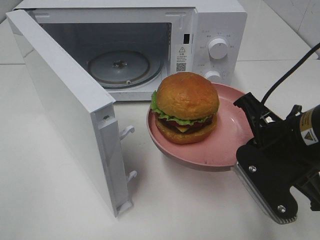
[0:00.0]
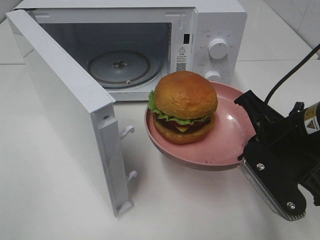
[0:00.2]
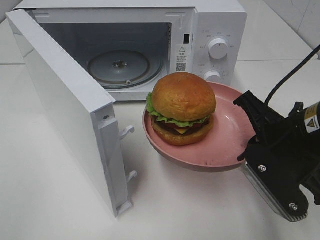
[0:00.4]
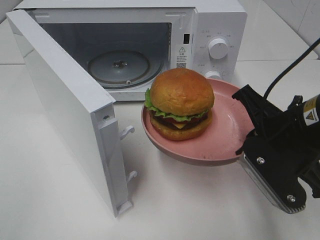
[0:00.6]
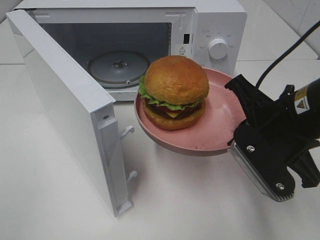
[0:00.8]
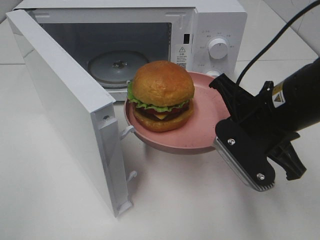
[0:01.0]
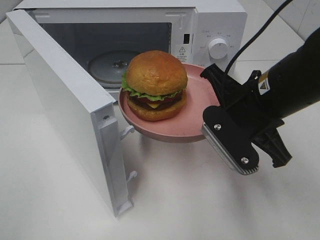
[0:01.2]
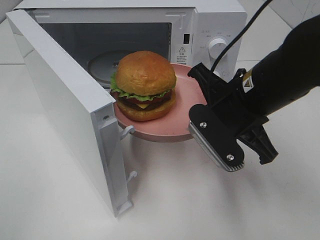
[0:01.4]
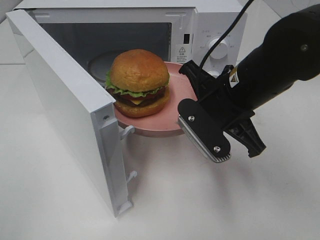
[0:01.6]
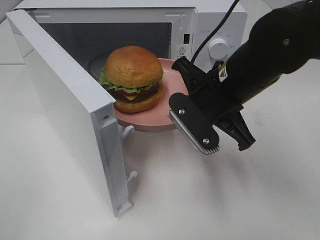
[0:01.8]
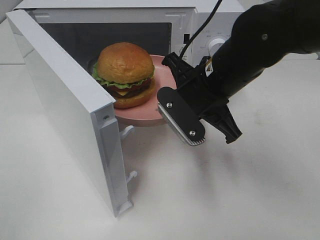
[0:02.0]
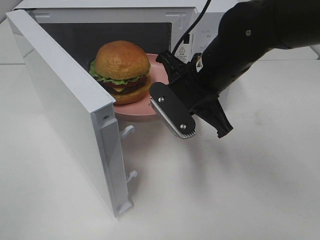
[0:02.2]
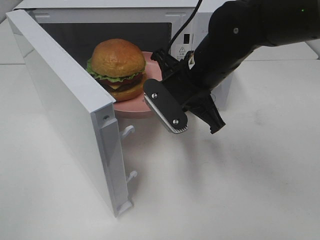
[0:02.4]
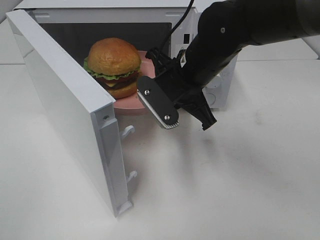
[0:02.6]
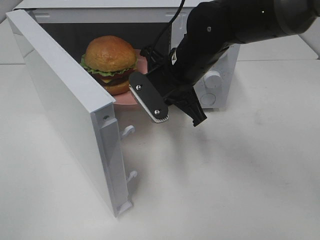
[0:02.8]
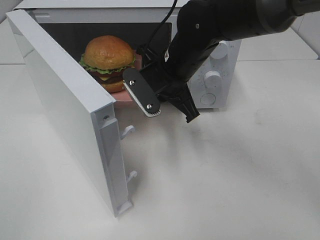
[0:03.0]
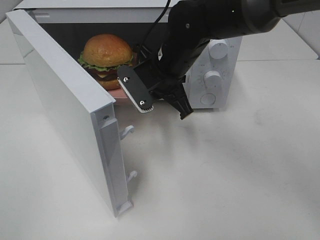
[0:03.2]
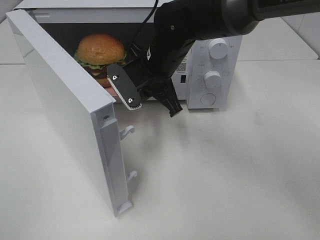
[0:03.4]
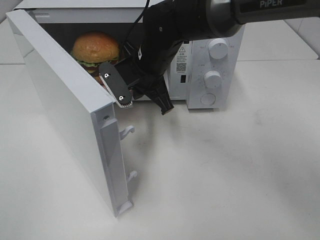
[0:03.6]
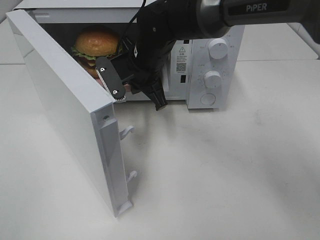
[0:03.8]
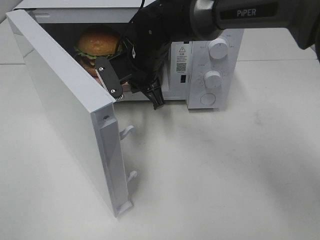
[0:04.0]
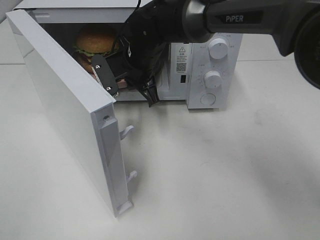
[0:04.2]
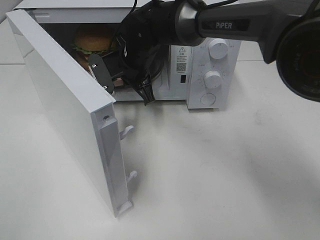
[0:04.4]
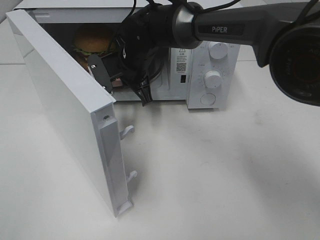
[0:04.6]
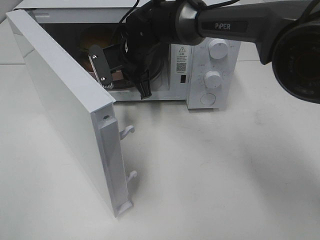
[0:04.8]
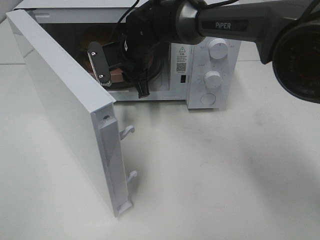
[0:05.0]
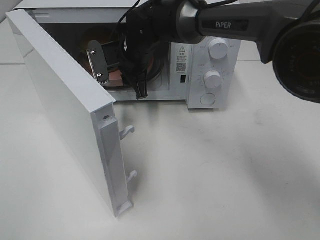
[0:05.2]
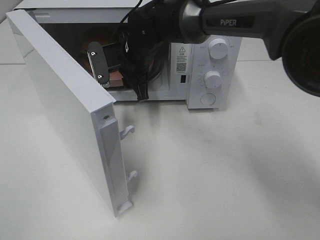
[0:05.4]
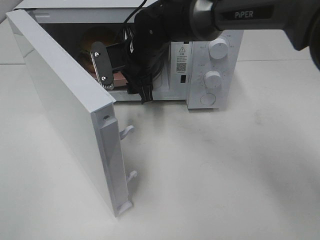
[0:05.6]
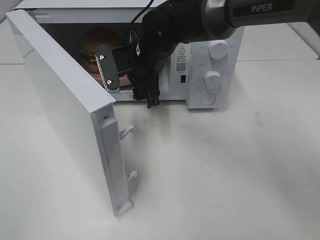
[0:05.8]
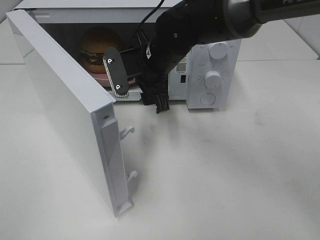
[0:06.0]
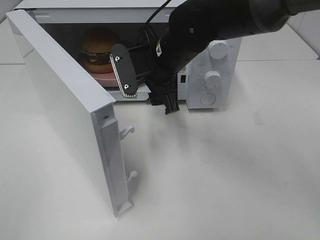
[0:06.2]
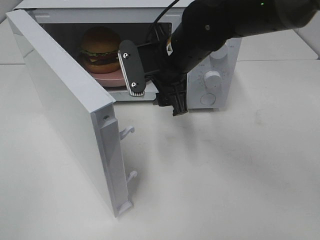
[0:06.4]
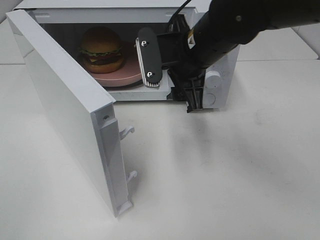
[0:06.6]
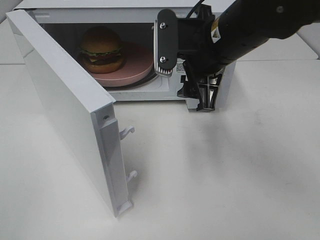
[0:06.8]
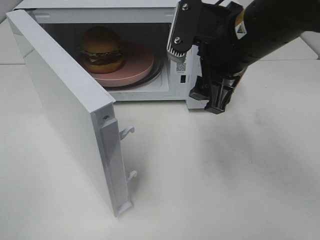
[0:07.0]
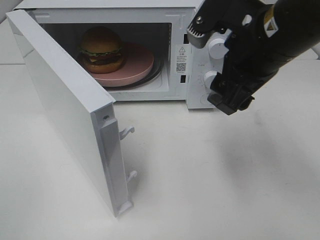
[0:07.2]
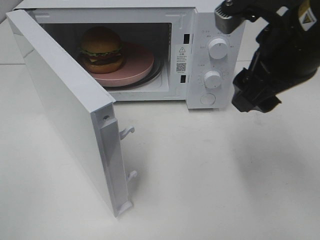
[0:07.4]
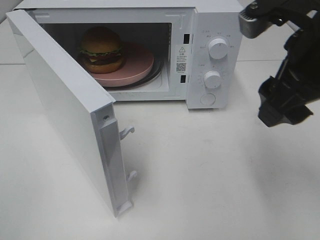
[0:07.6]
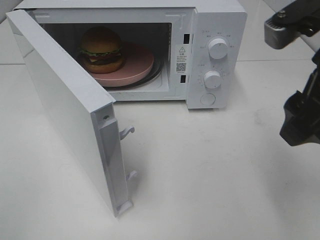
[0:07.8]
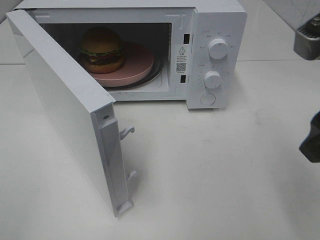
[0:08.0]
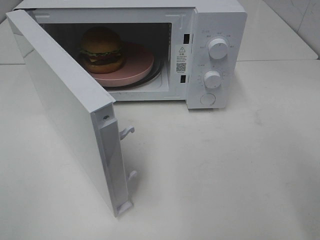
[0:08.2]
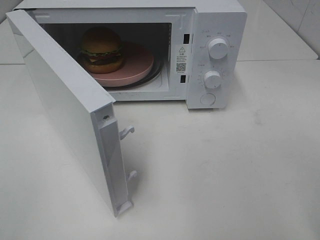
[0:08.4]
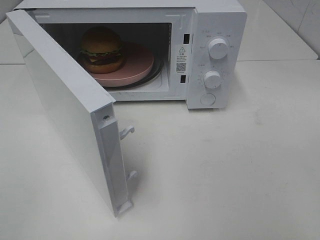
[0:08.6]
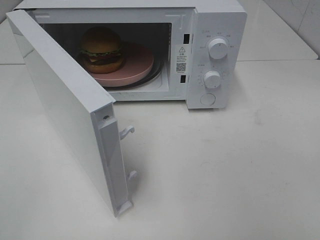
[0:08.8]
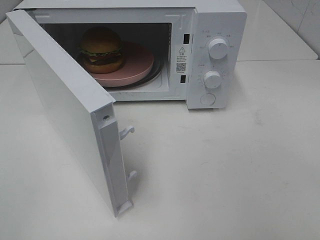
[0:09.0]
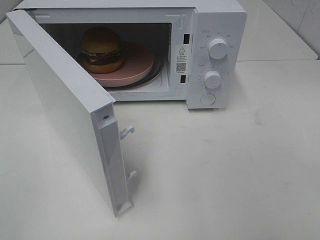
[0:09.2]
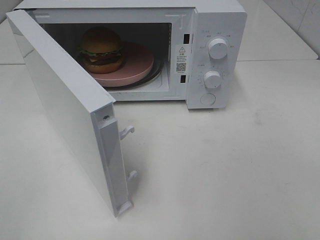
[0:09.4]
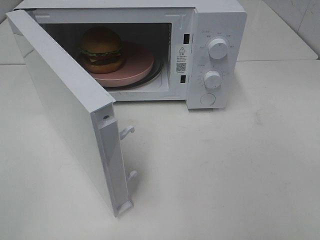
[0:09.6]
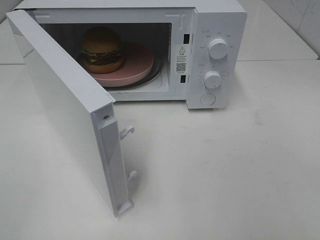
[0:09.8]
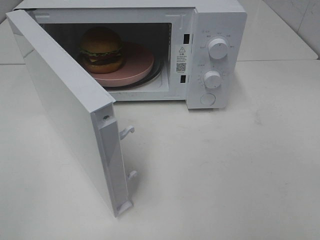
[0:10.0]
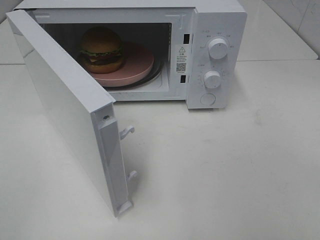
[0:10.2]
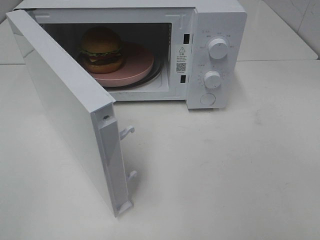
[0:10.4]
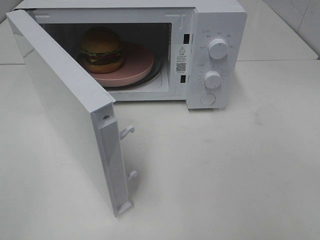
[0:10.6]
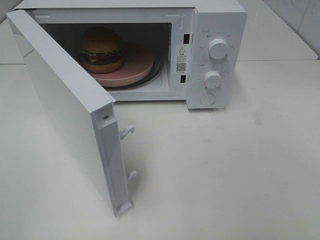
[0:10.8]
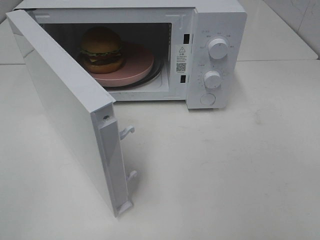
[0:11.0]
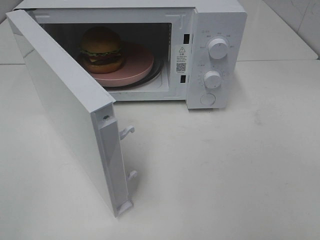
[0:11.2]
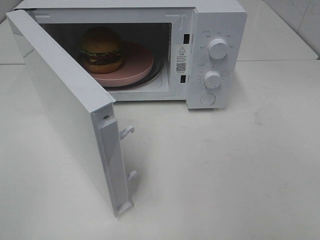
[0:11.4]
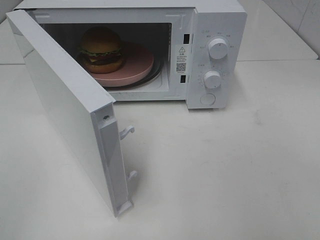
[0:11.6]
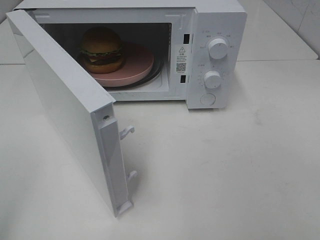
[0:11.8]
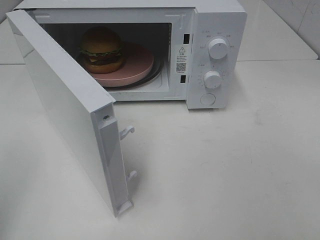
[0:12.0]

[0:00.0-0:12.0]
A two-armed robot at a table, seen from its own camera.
Task of the whole recording: Heat the burger.
Step, 0:00.0 to 0:06.2: Right hand: place the plate in the microwave.
0:00.0 to 0:01.6: The right gripper is displaced forward and to the left by roughly 10 cm.
0:01.6 to 0:03.0: The right gripper goes about 10 cm forward and to the left.
0:03.0 to 0:04.4: The right gripper shifts about 10 cm forward and to the left.
0:04.4 to 0:06.0: The right gripper is displaced backward by some 5 cm, and opens.
0:06.0 to 0:07.6: The right gripper is displaced backward, to the right and upward by about 25 cm.
0:07.6 to 0:09.0: The right gripper travels backward and to the right by some 20 cm.

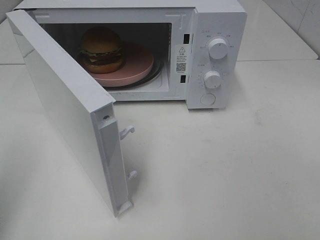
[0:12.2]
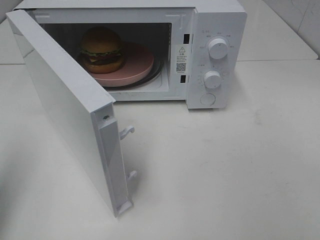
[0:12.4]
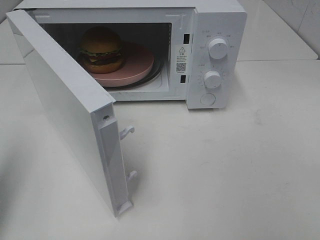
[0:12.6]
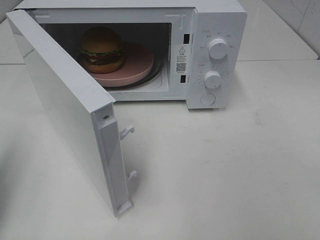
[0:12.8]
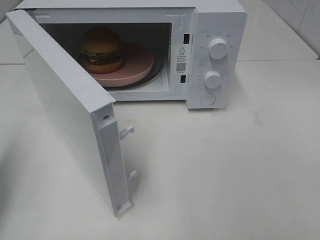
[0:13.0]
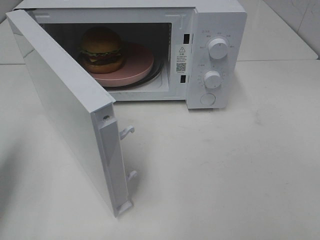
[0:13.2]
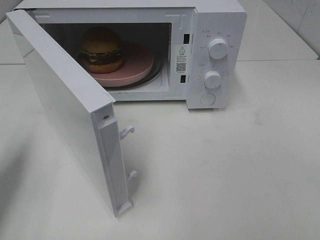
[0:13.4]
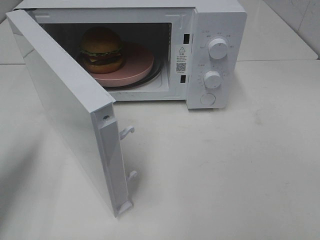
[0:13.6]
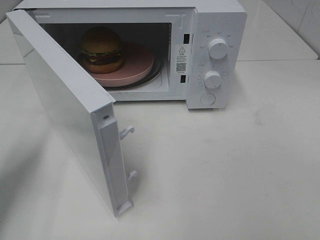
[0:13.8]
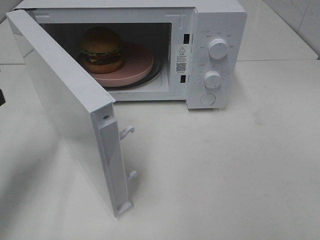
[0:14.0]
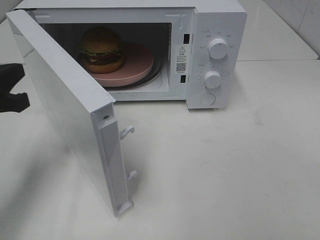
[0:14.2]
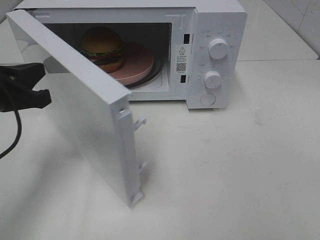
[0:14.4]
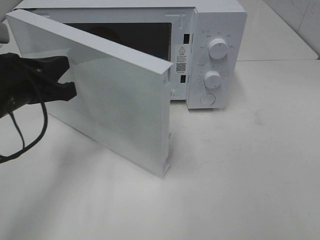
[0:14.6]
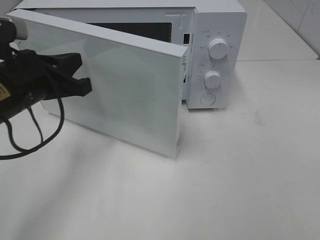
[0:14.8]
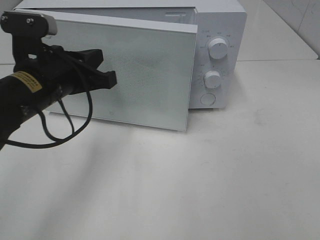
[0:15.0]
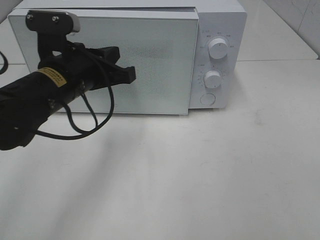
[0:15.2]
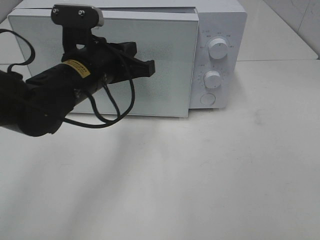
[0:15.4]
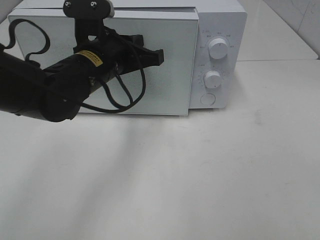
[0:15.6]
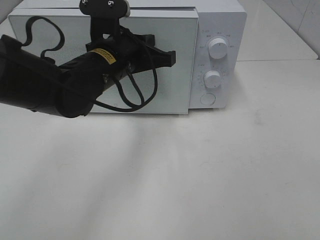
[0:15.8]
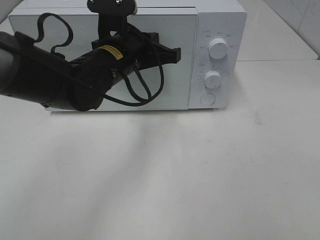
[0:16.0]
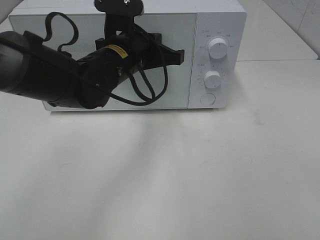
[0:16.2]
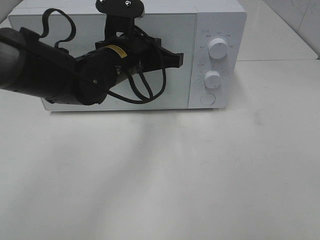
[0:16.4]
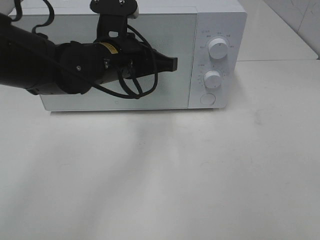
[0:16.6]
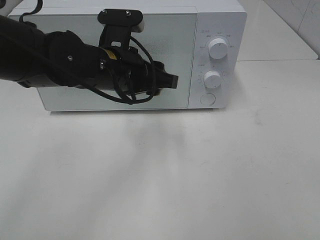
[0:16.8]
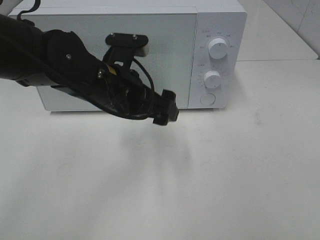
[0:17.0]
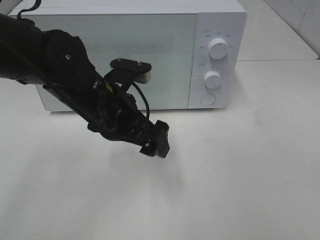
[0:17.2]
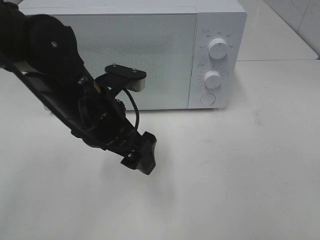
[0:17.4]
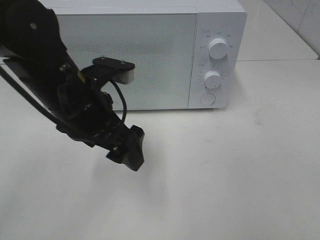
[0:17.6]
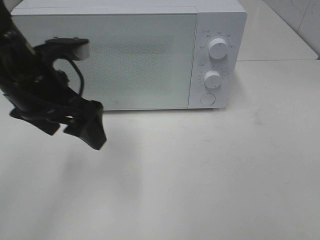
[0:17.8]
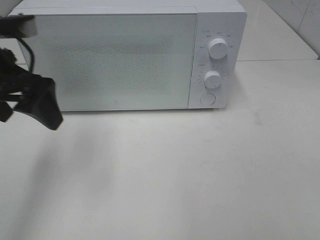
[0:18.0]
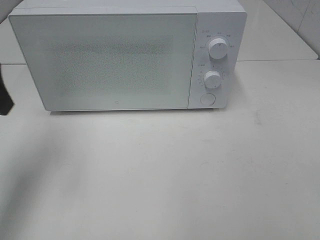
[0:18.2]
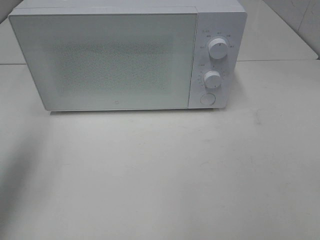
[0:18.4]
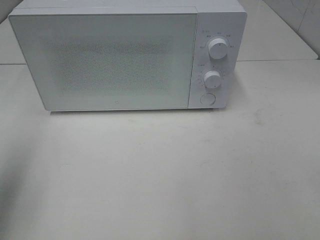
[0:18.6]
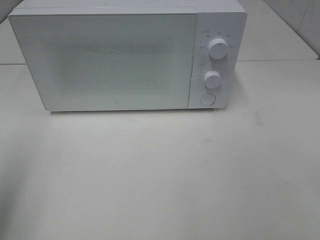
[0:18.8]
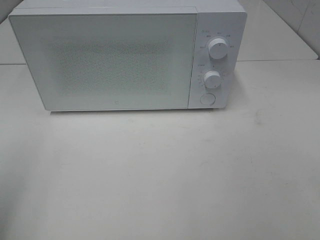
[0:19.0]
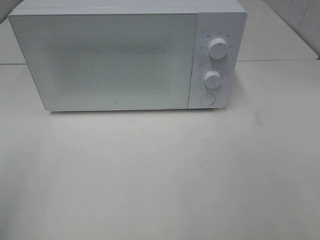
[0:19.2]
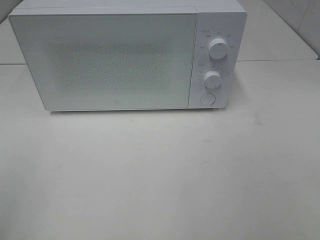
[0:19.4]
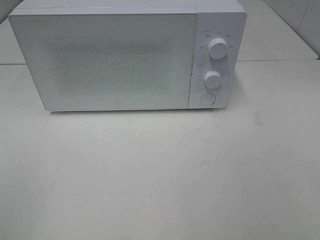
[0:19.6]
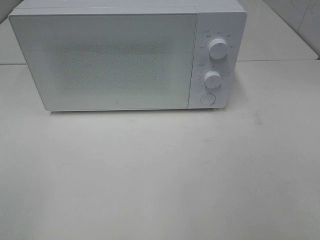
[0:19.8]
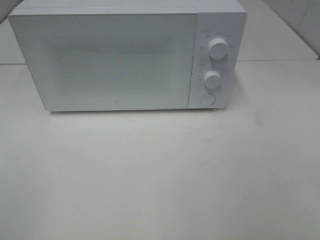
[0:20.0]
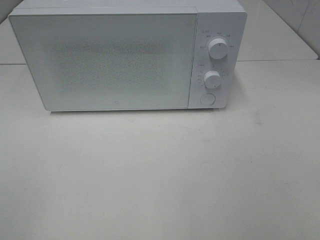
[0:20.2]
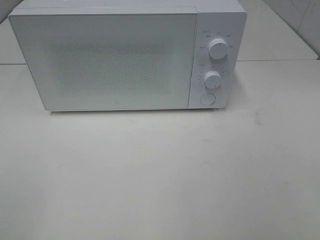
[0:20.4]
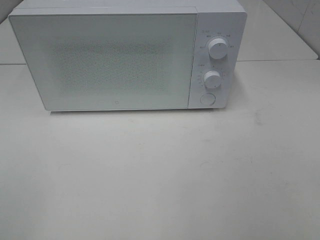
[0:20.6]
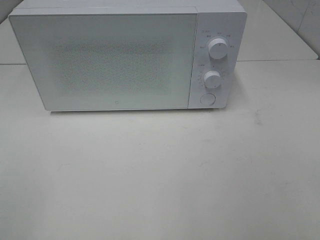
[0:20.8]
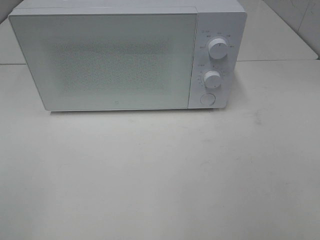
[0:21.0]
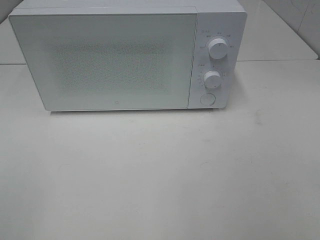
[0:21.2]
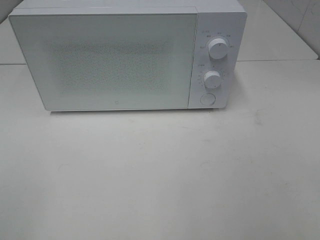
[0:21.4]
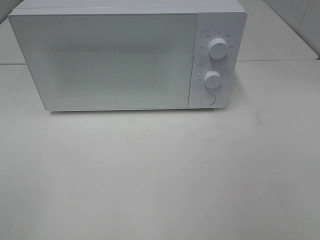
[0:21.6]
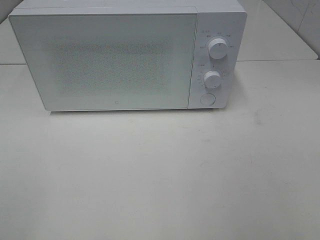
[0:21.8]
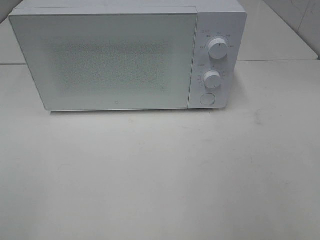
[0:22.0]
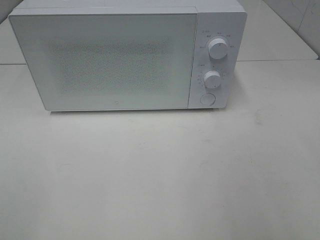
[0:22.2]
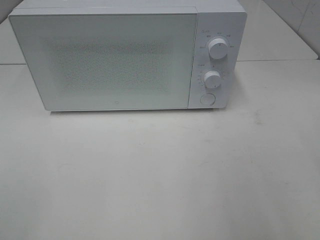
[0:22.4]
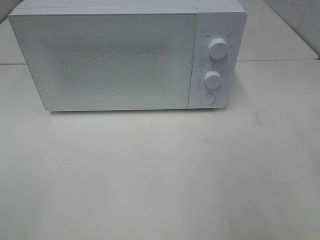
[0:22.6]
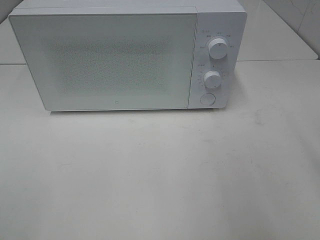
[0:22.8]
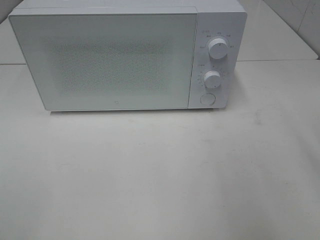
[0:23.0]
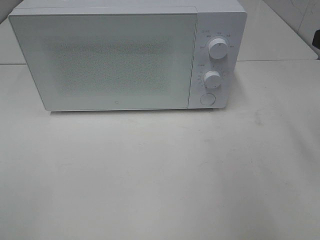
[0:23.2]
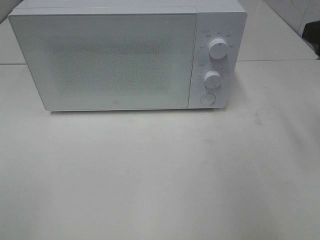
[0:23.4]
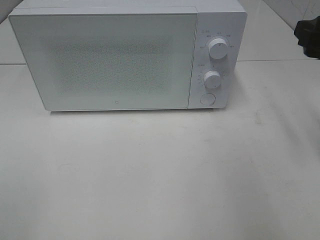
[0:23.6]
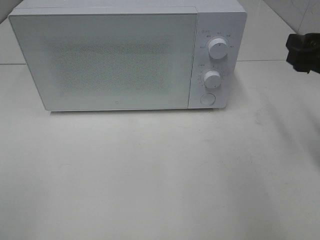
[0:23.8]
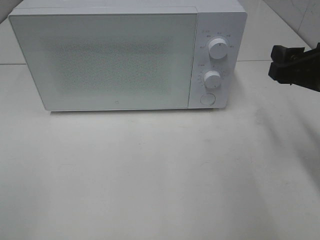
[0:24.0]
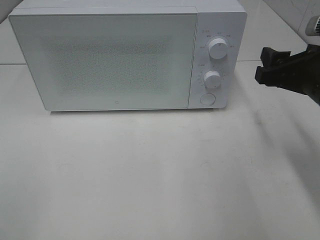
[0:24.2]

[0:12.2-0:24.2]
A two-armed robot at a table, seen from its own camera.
Task of the whole recording: Heat the burger.
Step, 0:12.2 to 0:16.6: Left hand: close the microwave door.
0:12.2 to 0:13.8: The left gripper is displaced forward and downward by some 15 cm.
0:13.8 to 0:15.2: The left gripper heads to the right, covering roughly 20 cm.
0:15.2 to 0:16.6: The left gripper moves to the right, approximately 5 cm.
0:16.6 to 0:18.2: The left gripper goes approximately 25 cm to the left and upward, and opens.
0:18.2 to 0:19.8: The left gripper goes some 25 cm backward.
0:19.8 to 0:21.2: The two grippers keep their place.
0:22.6 to 0:24.2: The right gripper moves forward and downward, roughly 15 cm.
